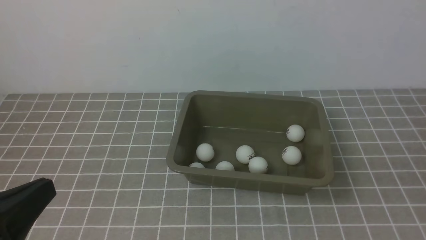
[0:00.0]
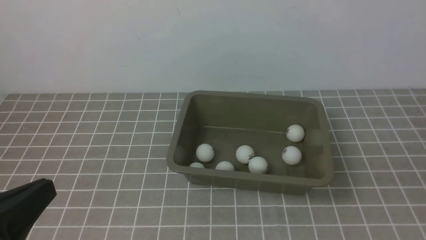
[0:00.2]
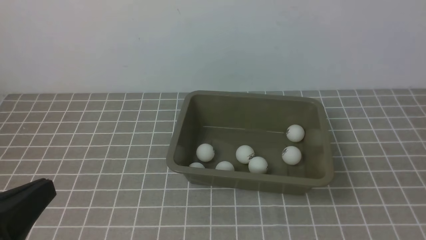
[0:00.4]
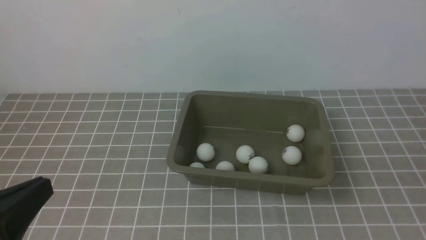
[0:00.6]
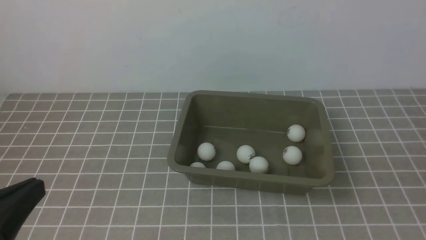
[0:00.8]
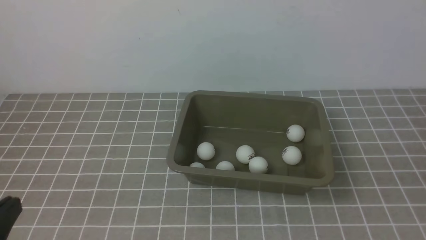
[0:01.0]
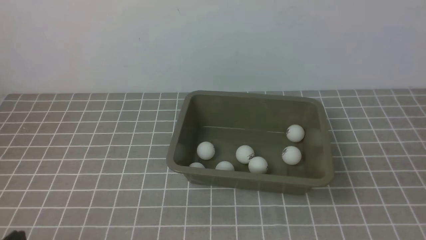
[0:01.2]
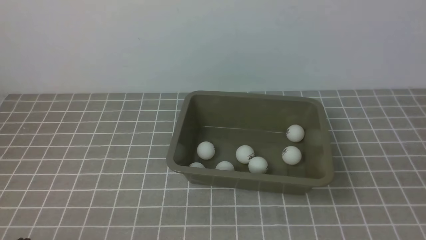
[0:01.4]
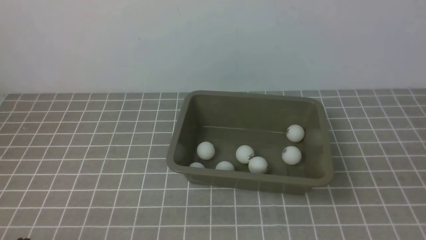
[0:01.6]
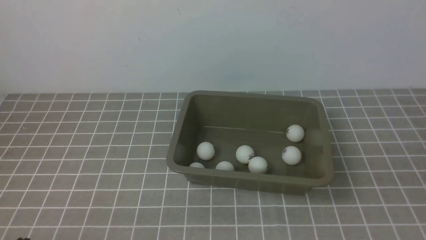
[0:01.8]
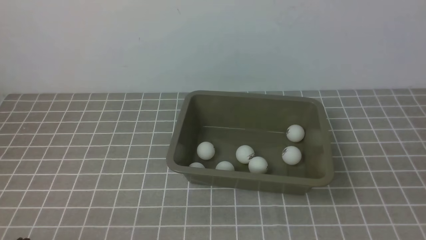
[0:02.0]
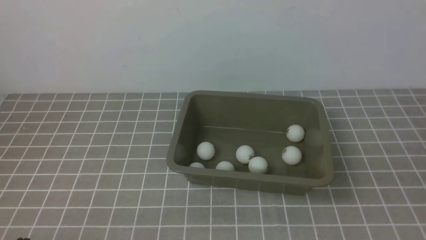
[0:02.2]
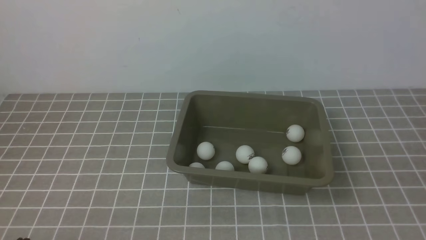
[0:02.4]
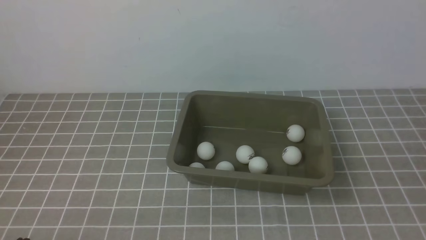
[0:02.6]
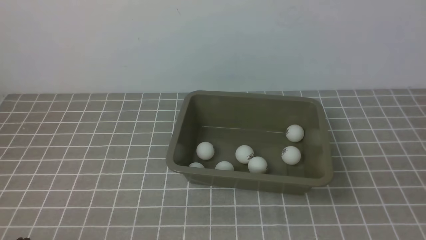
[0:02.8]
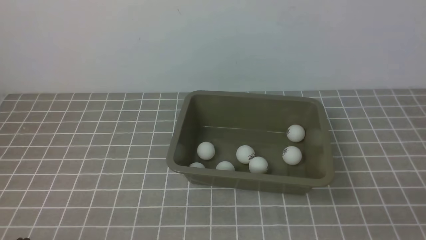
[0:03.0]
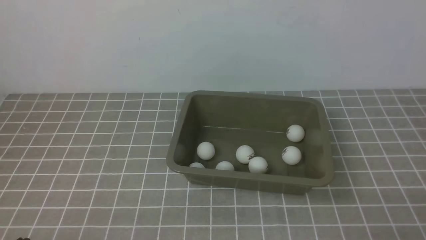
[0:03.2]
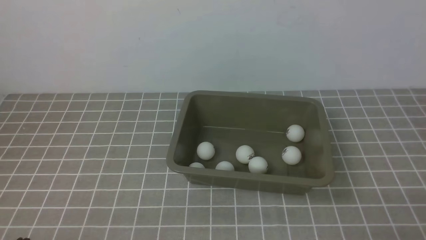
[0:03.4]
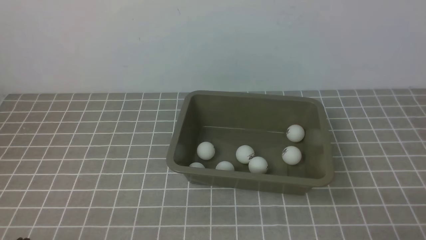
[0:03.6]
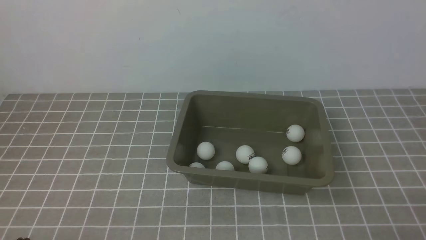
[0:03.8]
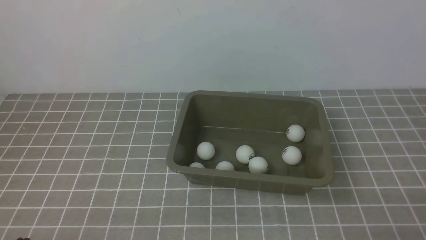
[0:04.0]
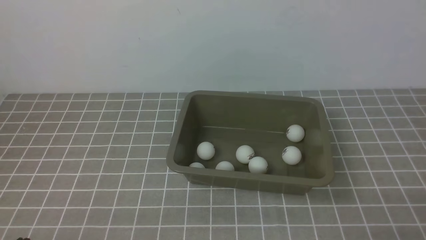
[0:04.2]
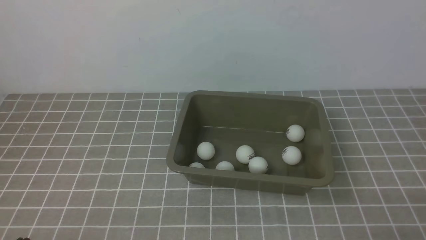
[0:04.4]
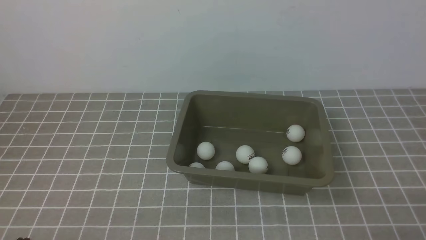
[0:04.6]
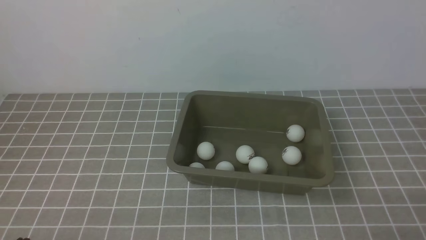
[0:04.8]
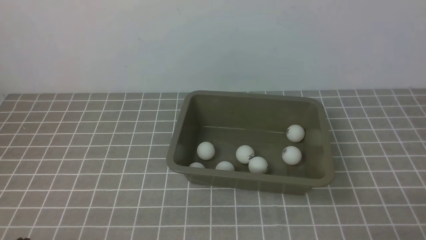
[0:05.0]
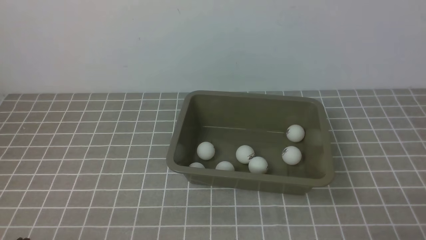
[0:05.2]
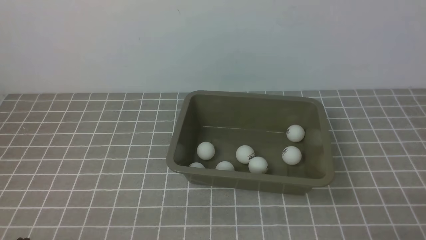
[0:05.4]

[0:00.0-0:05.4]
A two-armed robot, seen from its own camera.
0:00.0 to 0:01.4: The left gripper moves downward, approximately 10 cm.
0:04.0 to 0:05.4: Both grippers stay about where they are.

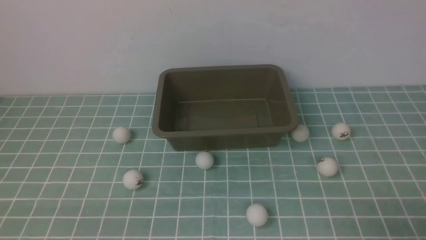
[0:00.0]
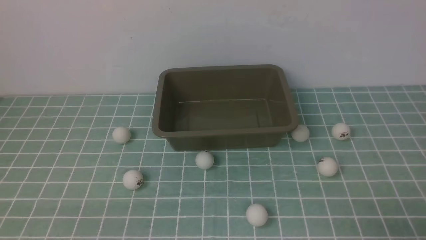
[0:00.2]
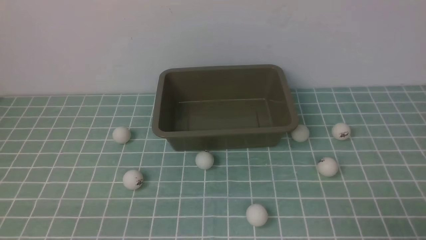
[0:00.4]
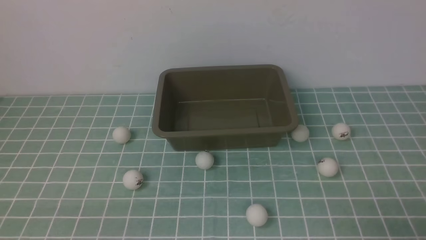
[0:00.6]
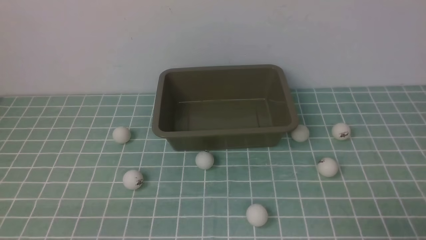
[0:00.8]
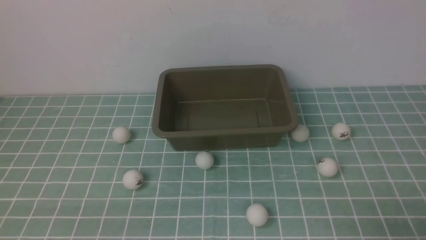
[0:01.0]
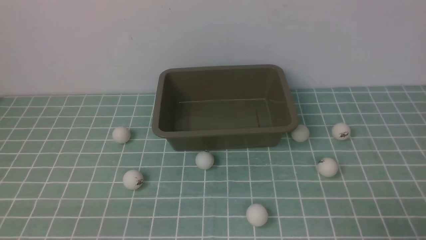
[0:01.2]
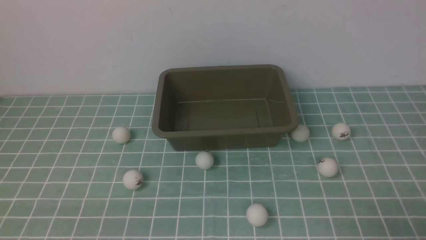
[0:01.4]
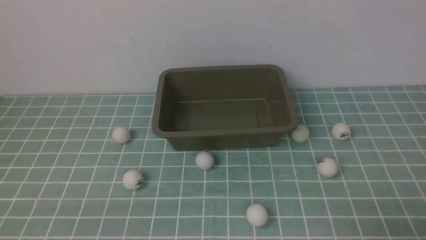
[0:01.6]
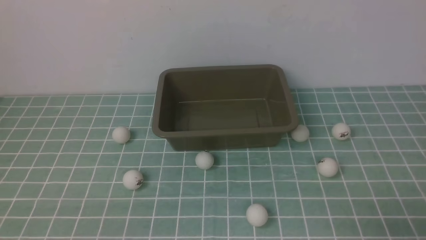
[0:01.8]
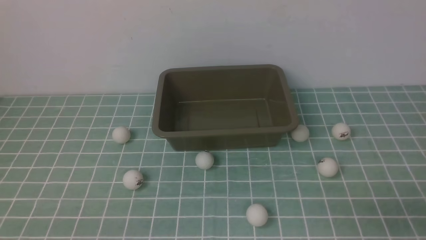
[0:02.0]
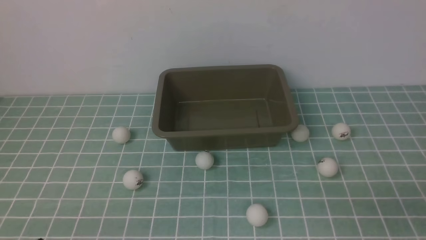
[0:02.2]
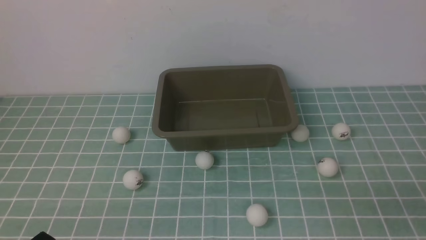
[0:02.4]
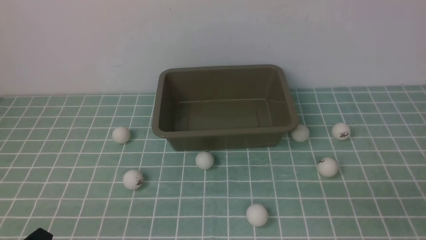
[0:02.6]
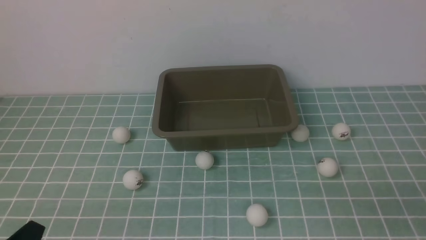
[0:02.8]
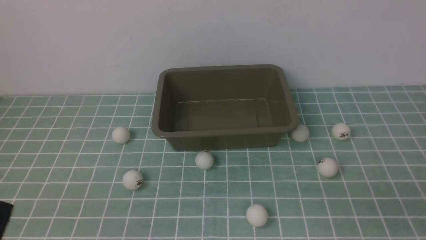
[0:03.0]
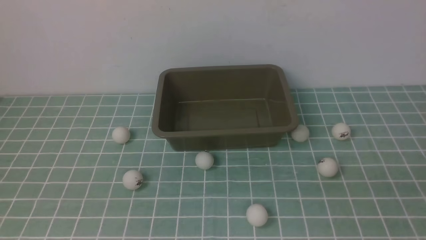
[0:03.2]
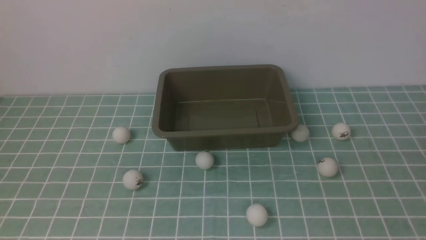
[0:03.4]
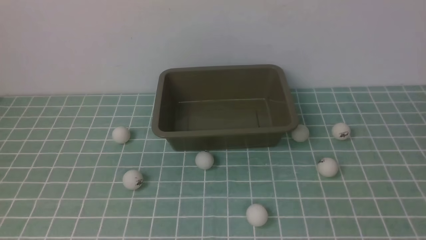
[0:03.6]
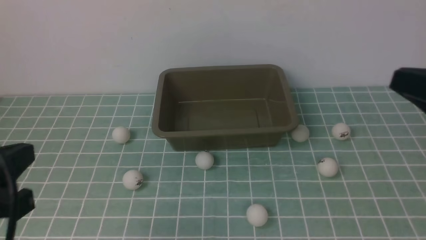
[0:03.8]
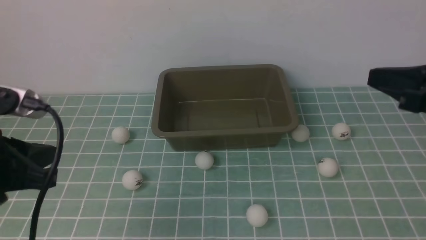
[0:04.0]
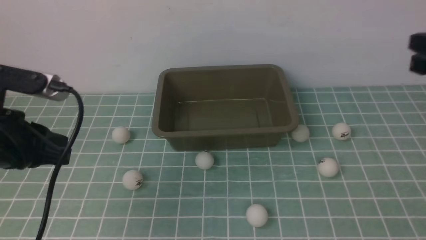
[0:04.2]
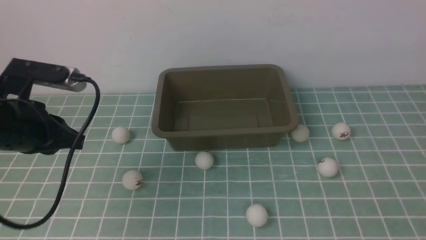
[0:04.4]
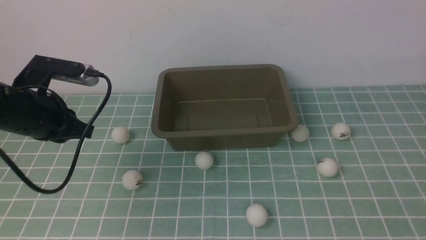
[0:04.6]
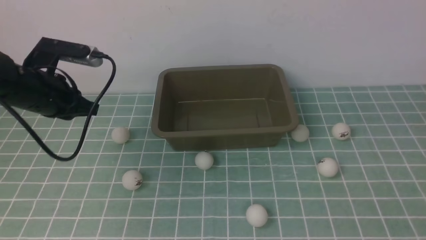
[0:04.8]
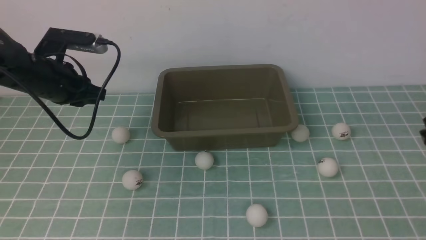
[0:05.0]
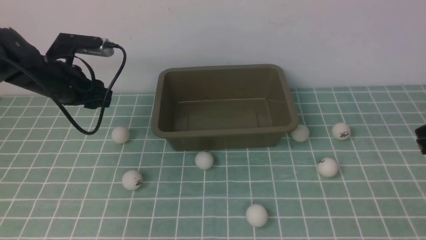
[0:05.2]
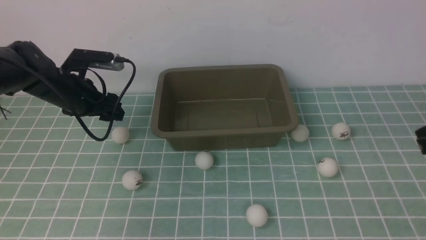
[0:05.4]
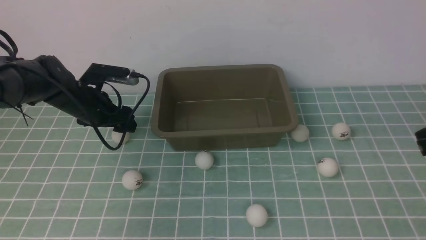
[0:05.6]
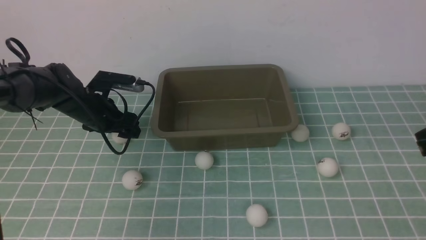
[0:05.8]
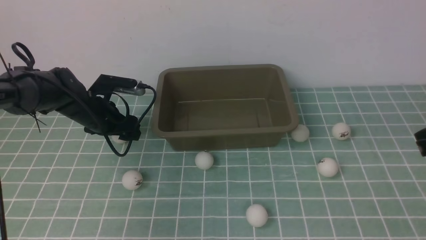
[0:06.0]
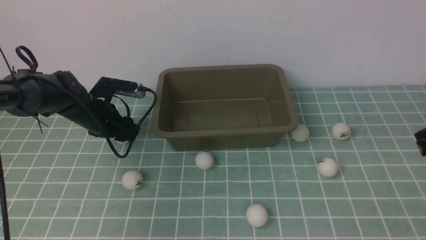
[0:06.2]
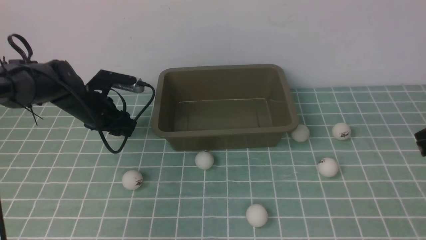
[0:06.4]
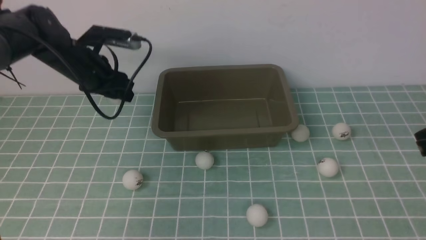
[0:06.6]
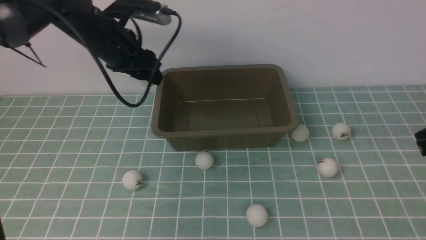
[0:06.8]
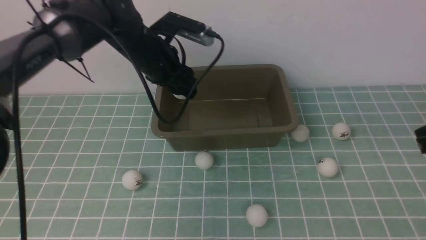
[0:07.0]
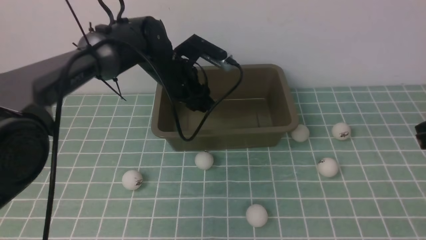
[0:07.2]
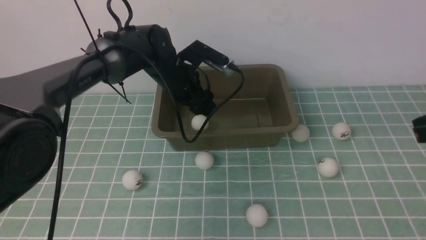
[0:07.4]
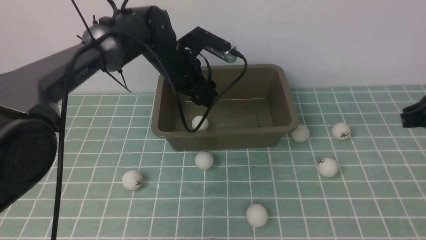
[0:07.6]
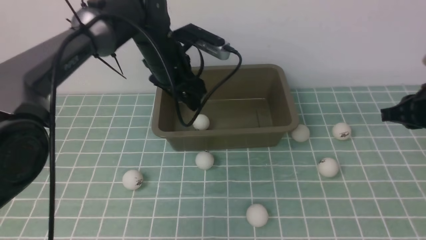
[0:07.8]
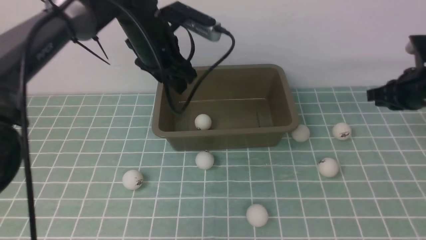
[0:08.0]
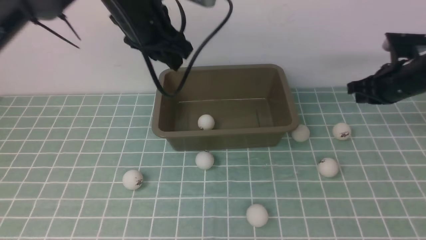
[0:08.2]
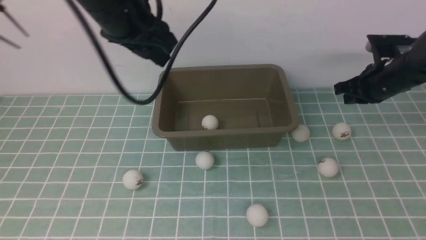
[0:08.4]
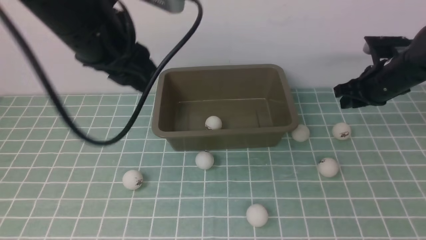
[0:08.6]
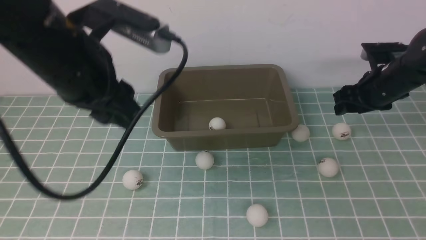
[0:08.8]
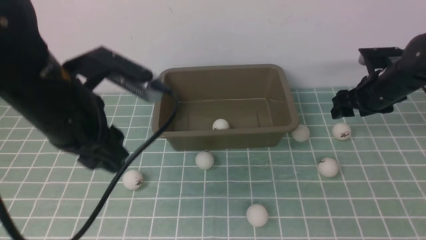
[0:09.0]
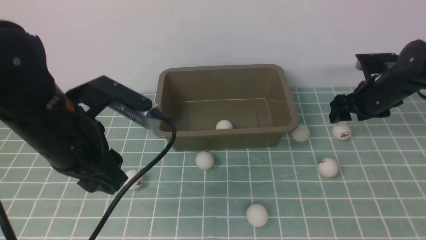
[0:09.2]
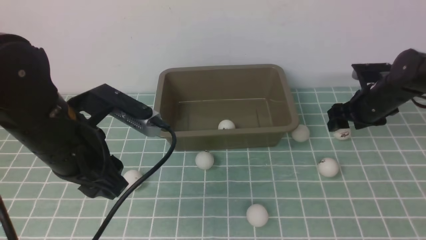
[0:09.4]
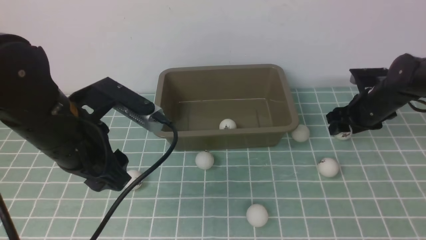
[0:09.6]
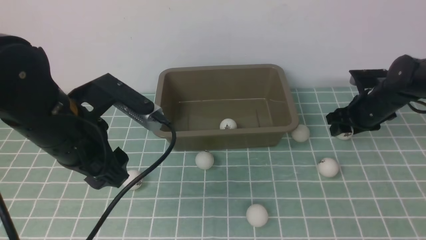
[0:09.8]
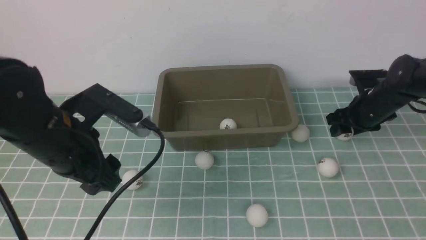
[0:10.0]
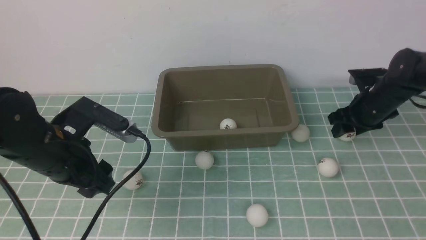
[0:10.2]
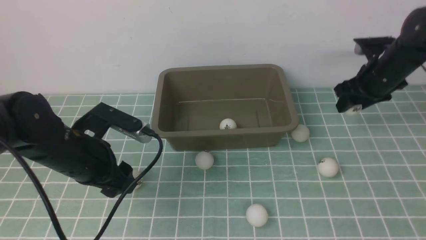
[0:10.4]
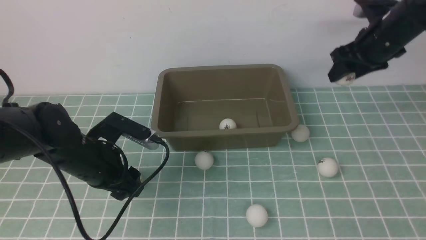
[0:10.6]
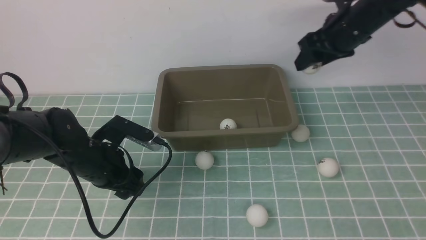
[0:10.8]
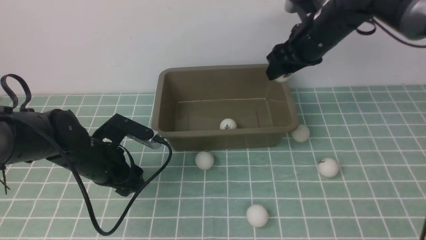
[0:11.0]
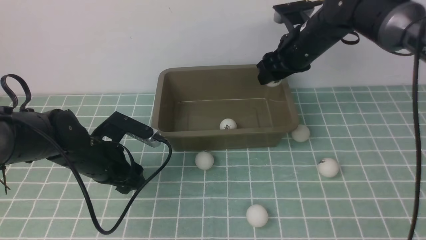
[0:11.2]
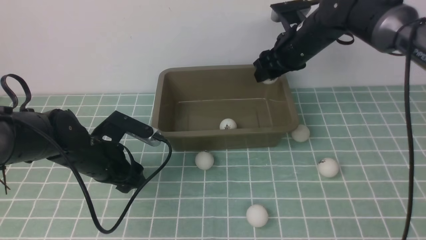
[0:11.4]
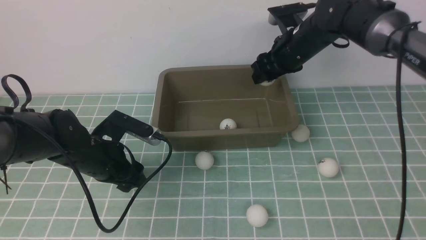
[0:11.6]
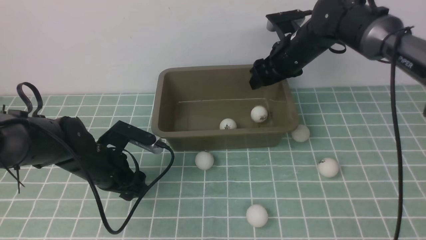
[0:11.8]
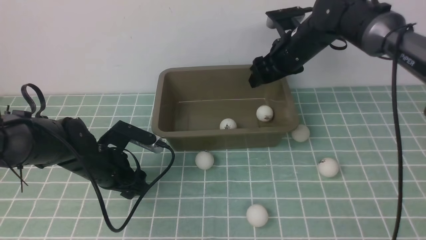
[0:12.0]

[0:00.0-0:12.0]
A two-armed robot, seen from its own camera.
Step, 0:00.0 to 0:06.4: use the left arm to clamp the table tennis ball closest to it.
Step, 0:06.6 to 0:07.6: use the left arm to put the table tennis ball into the box.
Step, 0:07.8 to 0:10.4: use the right arm to clamp the table tennis ball closest to it.
0:03.0 to 0:04.4: The left gripper heads forward, covering about 20 cm.
0:04.4 to 0:06.0: The right gripper moves some 5 cm. The left gripper travels forward and downward by some 20 cm, and opens up.
0:06.0 to 0:07.6: The left gripper moves upward and to the right, some 20 cm. The right gripper heads forward, covering about 10 cm.
0:07.6 to 0:09.0: The left gripper moves backward, about 20 cm, while the right gripper shifts some 15 cm downward and forward, and opens up.
0:09.0 to 0:10.4: The left gripper heads downward and forward, covering about 15 cm, while the right gripper moves upward and to the left, some 20 cm.
0:10.4 to 0:12.0: The right gripper goes some 10 cm upward.
